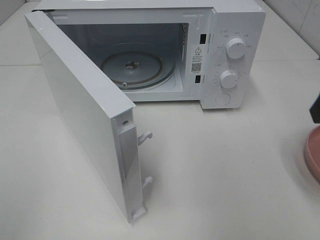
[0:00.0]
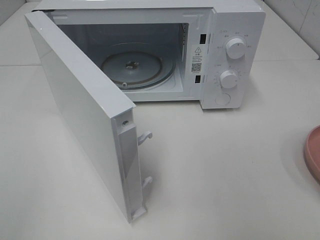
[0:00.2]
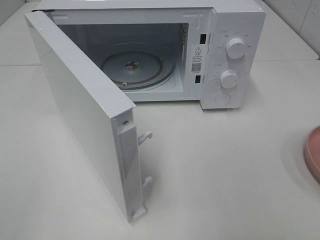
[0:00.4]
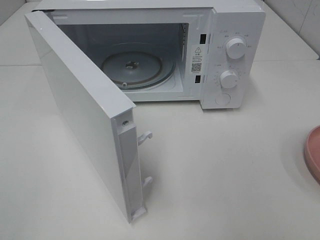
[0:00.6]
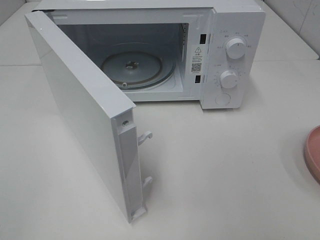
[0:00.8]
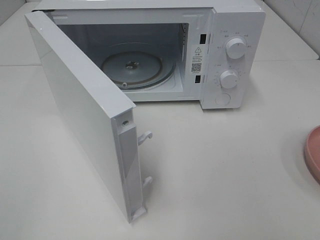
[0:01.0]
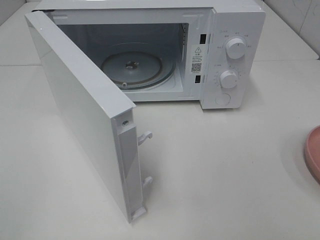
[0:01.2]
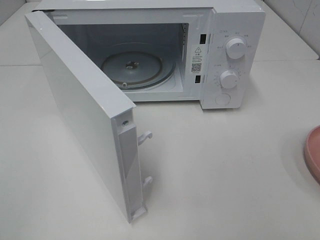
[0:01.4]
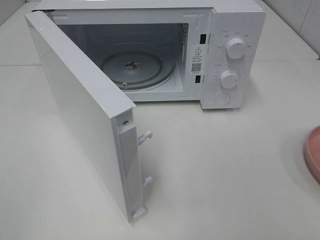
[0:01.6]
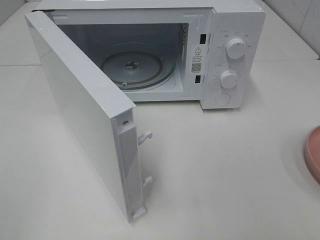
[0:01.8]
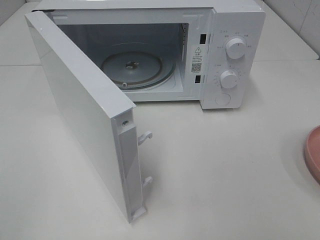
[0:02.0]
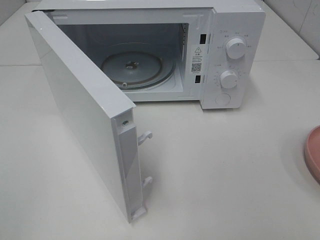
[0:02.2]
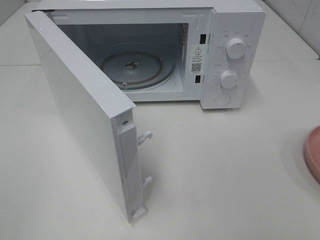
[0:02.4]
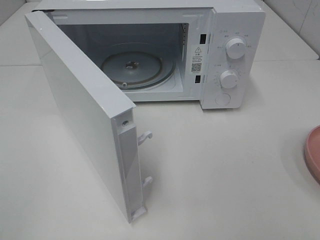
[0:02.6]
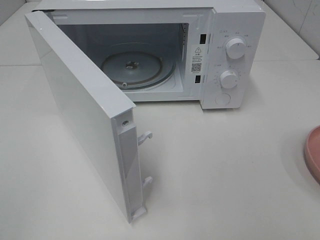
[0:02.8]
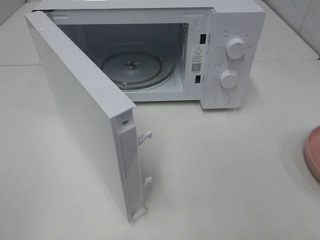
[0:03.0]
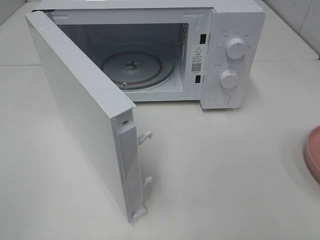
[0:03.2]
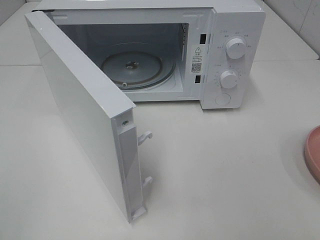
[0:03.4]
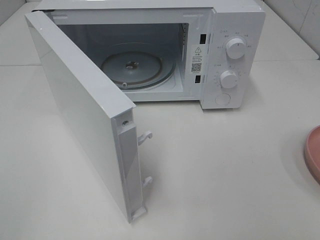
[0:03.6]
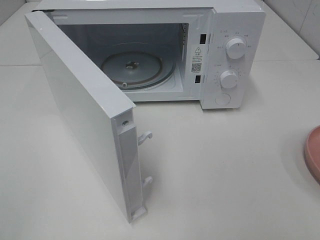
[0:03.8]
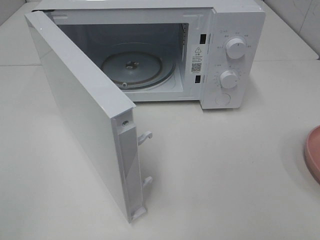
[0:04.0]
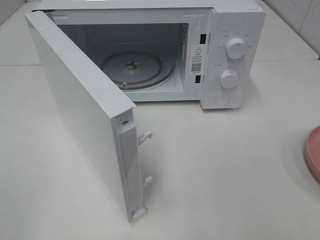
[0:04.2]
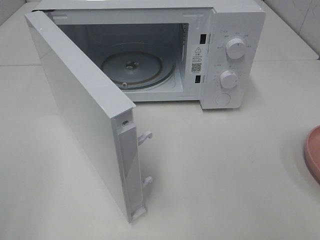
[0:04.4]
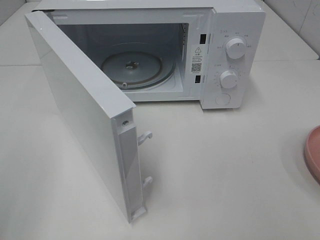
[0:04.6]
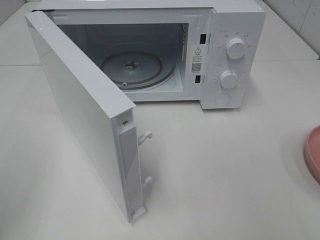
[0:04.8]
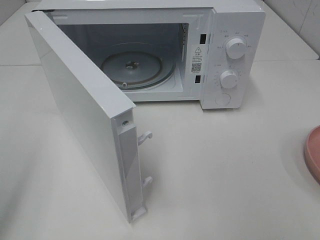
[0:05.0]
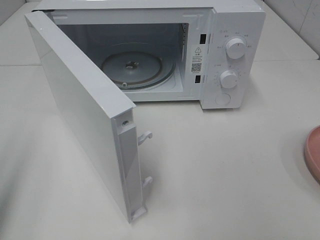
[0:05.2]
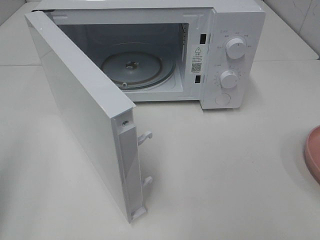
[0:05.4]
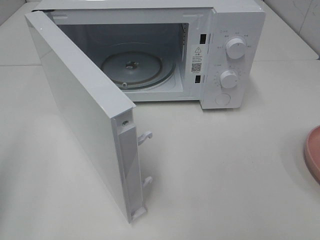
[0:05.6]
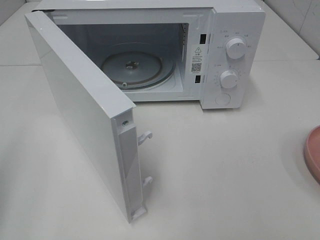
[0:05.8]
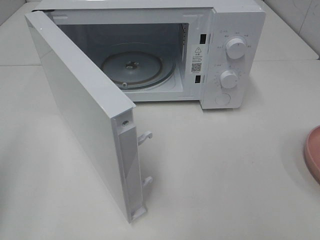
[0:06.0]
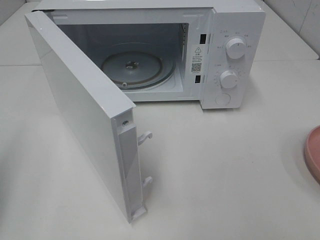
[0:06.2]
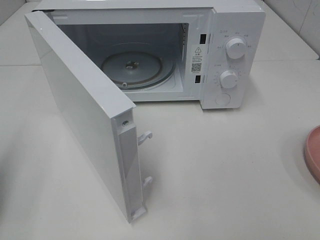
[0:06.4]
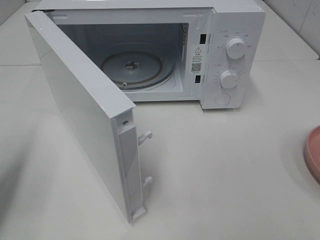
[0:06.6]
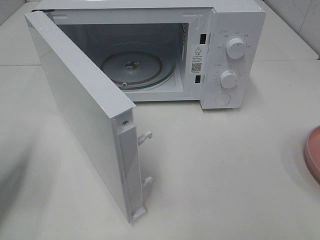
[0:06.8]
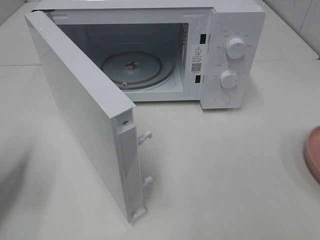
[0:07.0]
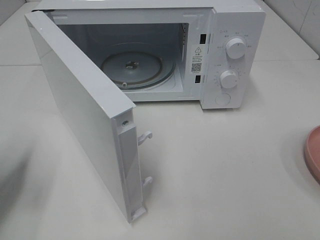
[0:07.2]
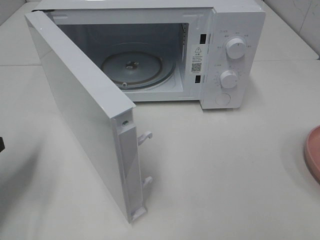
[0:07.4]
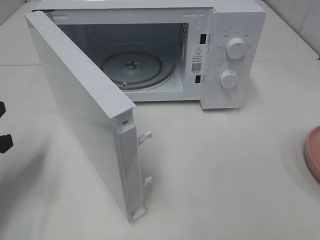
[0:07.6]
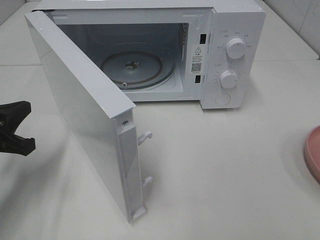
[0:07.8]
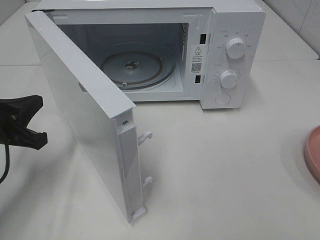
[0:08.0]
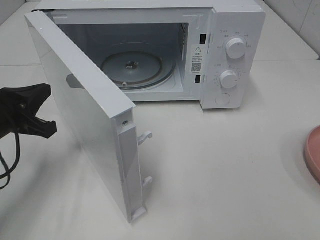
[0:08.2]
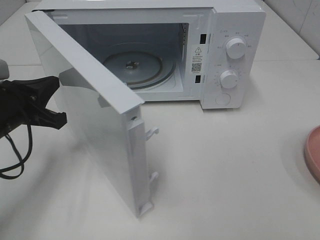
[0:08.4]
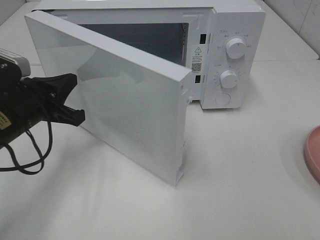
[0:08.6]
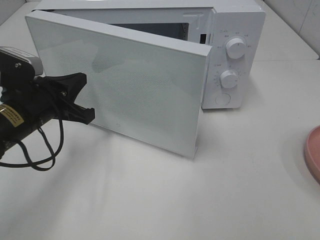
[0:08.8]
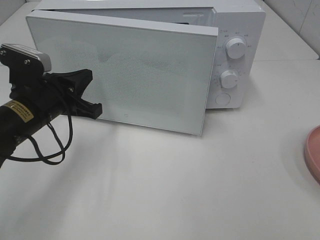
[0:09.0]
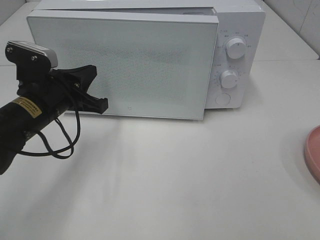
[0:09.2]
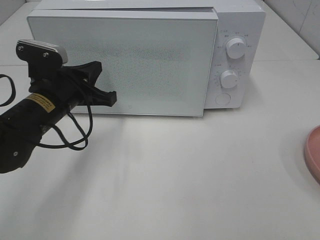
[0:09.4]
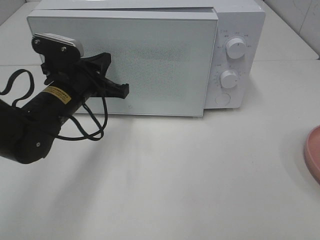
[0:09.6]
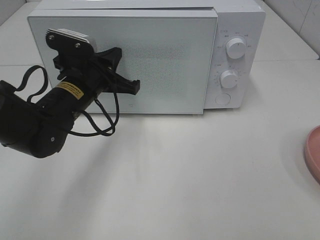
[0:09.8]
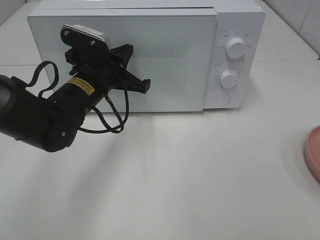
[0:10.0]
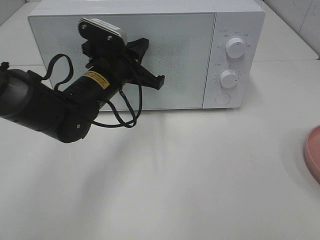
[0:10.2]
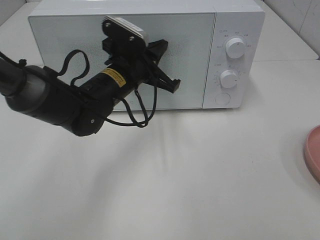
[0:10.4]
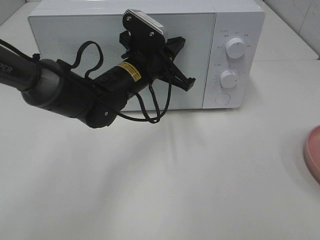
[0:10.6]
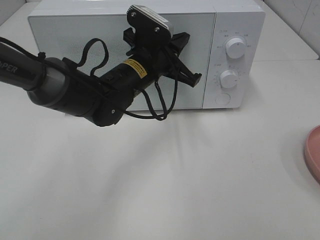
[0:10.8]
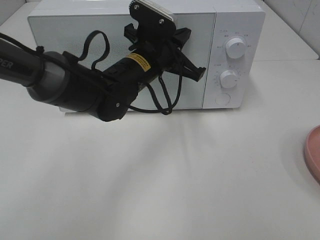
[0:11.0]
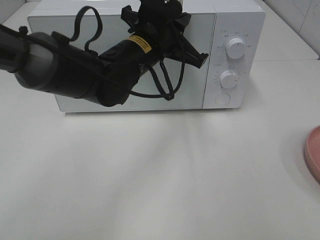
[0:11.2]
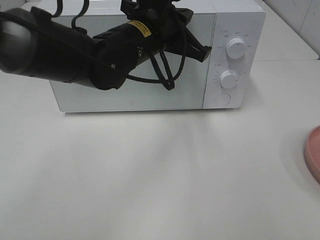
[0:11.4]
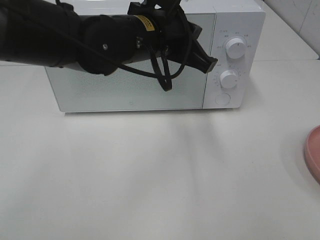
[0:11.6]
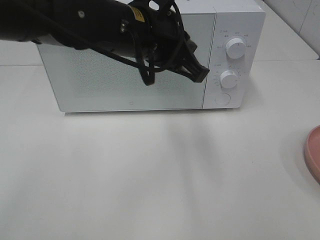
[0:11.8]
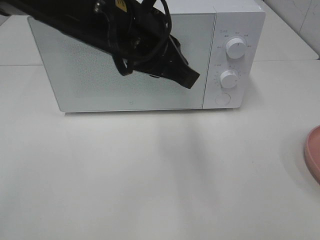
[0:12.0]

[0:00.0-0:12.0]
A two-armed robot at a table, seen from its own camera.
Task of the whole recording: Heat the burger.
Step, 0:00.0 to 0:11.4: Left hand: close the microwave door.
0:01.6 to 0:03.0: The two grippers keep their place.
0:06.0 to 0:07.6: The left gripper moves forward and downward, about 15 cm.
0:07.6 to 0:09.0: The left gripper is displaced to the right and forward by approximately 15 cm.
0:09.0 to 0:10.4: The left gripper moves to the right and forward, roughly 15 cm.
0:10.4 to 0:12.0: The left gripper heads upward and backward, covering approximately 15 cm.

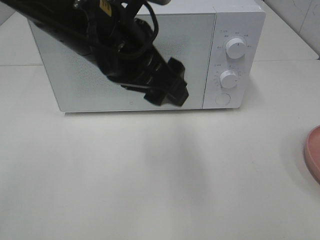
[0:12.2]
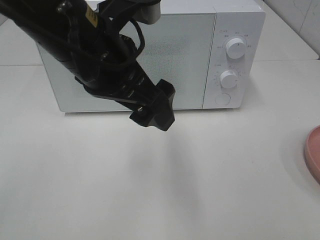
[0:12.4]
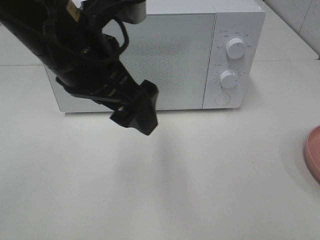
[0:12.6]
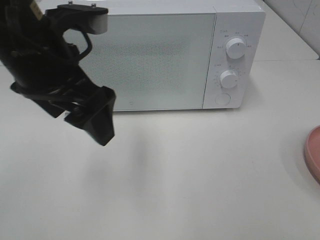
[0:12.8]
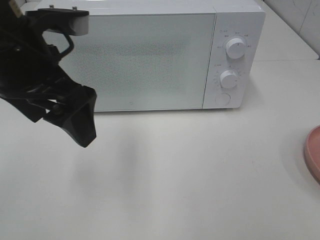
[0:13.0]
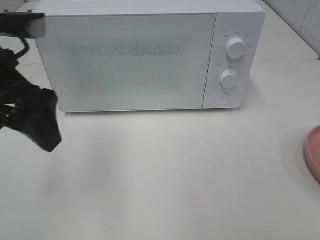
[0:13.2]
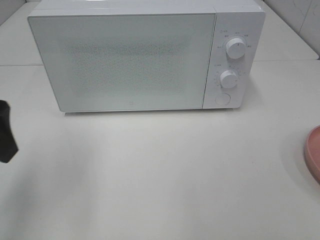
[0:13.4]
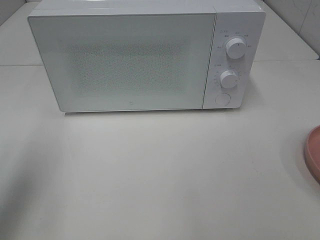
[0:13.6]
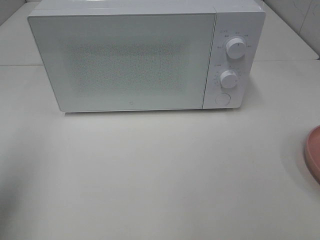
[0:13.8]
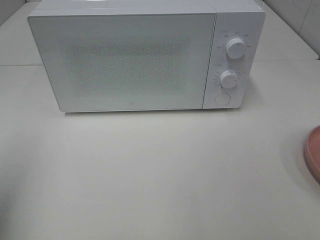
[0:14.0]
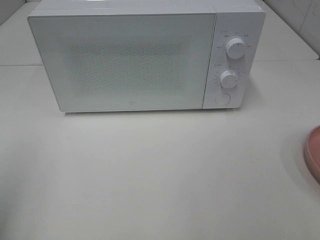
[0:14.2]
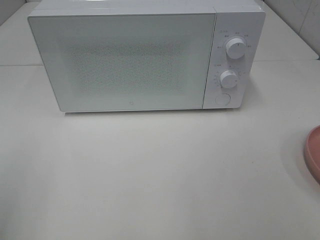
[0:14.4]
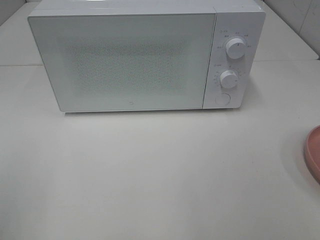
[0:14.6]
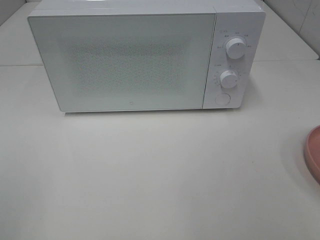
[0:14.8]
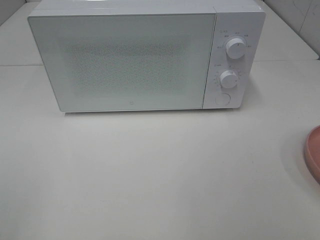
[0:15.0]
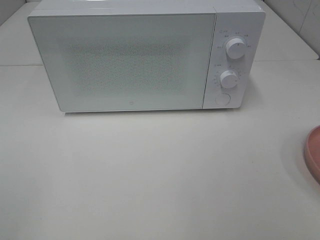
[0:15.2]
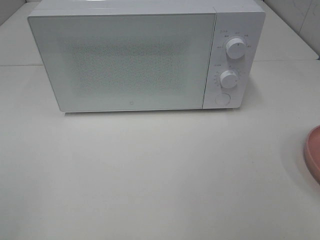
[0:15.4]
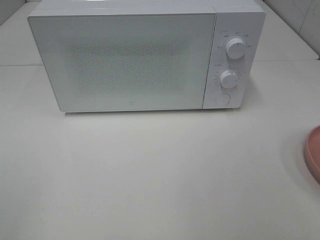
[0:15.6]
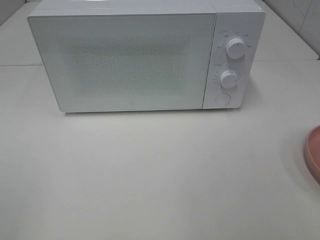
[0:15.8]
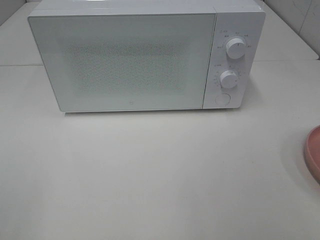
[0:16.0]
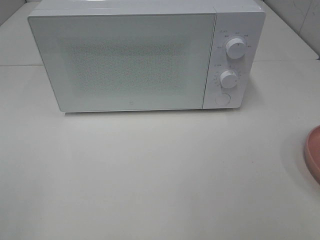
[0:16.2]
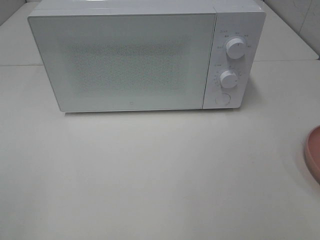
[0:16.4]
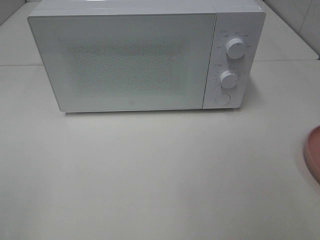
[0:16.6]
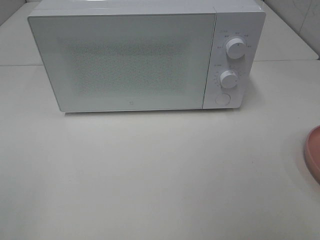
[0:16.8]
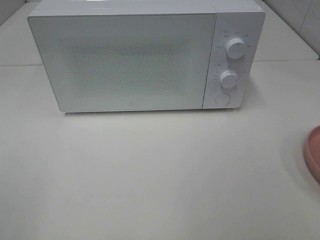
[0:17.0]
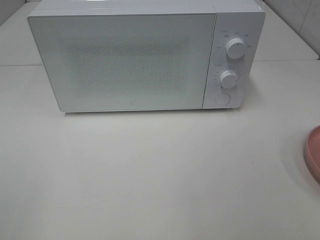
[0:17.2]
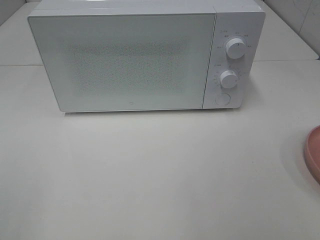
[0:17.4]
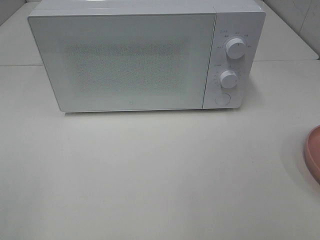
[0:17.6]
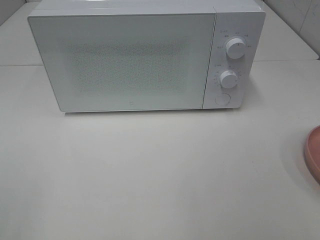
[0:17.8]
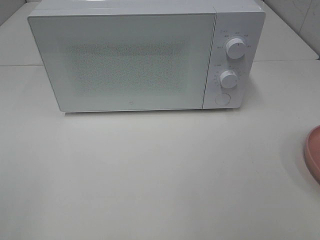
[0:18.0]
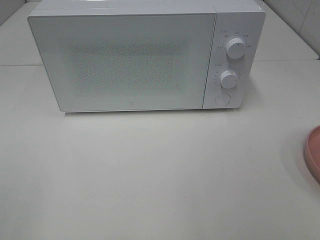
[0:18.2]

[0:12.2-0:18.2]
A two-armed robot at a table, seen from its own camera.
Task of the whole recording: Heat the burger.
0:12.2 to 0:13.8: The left gripper heads to the left, covering roughly 25 cm.
0:13.8 to 0:15.2: The left gripper is displaced backward by approximately 15 cm.
0:15.2 to 0:18.2: Both grippers stay put.

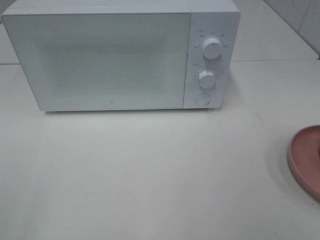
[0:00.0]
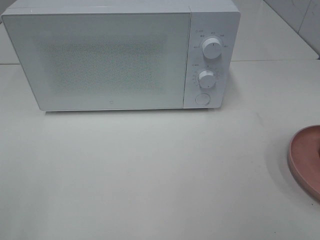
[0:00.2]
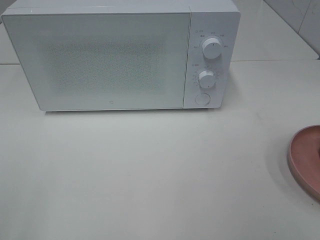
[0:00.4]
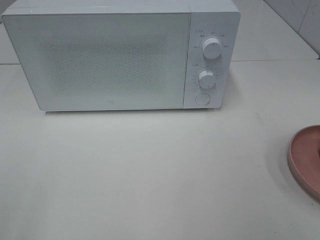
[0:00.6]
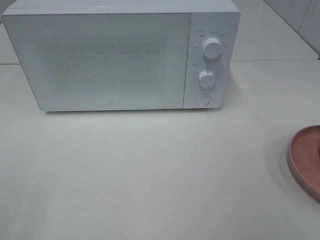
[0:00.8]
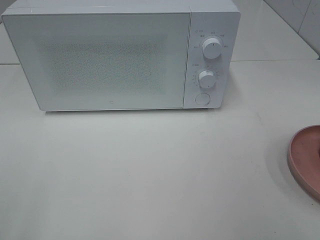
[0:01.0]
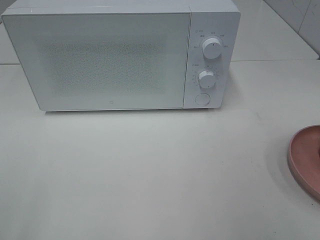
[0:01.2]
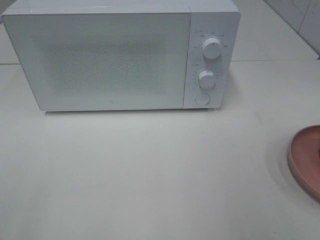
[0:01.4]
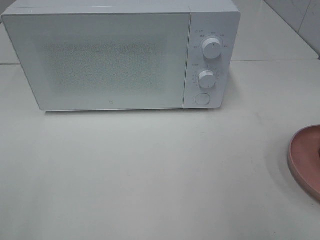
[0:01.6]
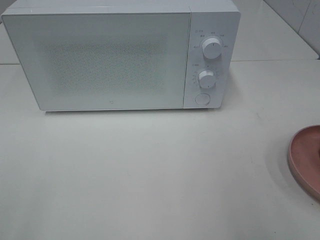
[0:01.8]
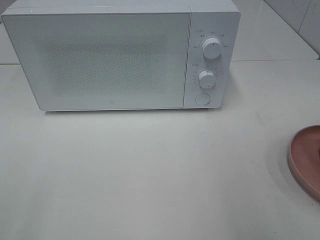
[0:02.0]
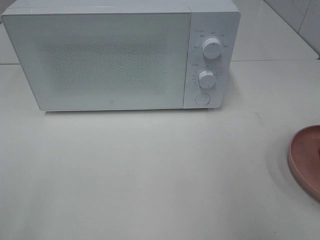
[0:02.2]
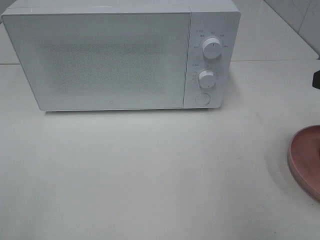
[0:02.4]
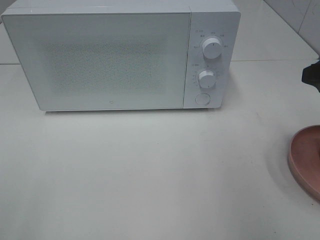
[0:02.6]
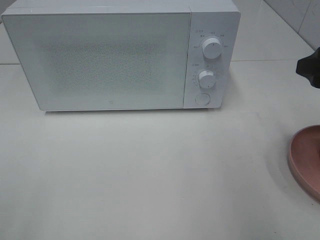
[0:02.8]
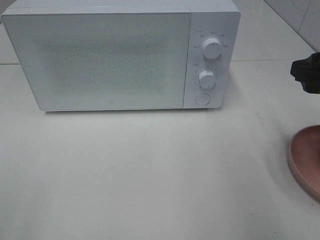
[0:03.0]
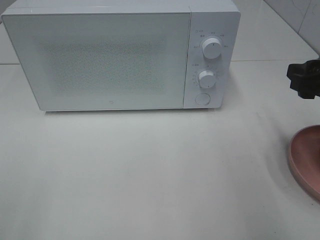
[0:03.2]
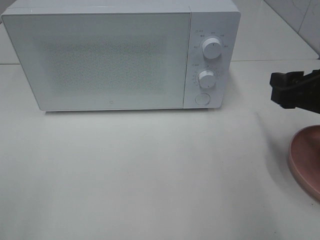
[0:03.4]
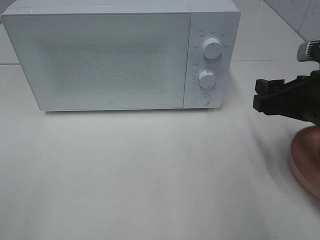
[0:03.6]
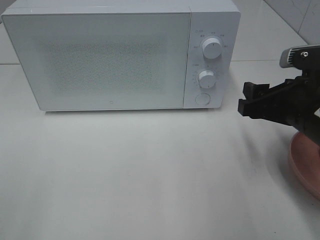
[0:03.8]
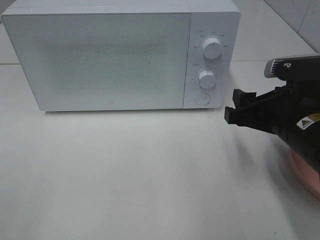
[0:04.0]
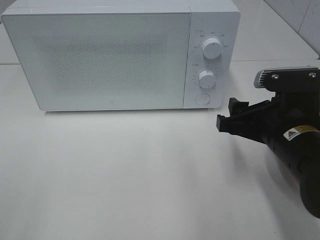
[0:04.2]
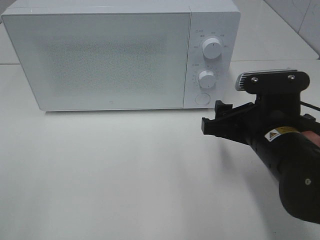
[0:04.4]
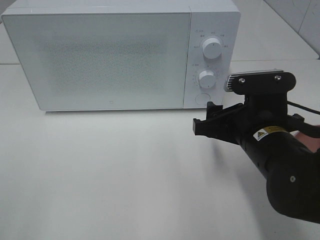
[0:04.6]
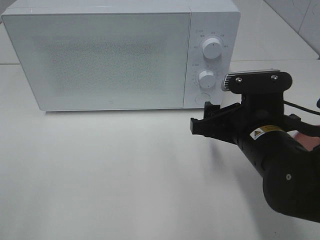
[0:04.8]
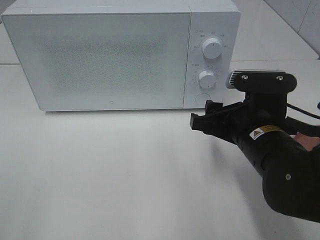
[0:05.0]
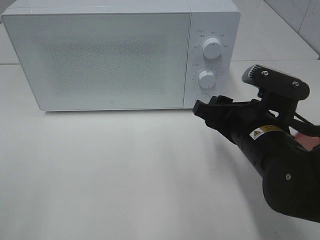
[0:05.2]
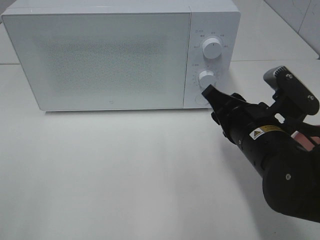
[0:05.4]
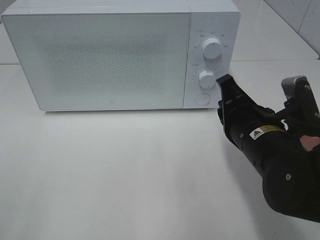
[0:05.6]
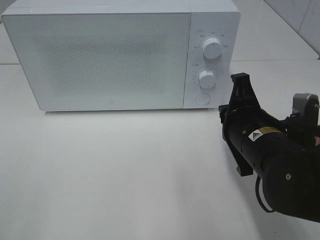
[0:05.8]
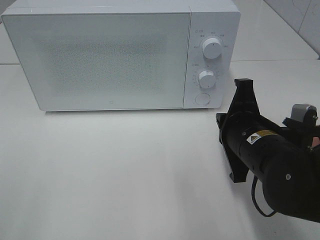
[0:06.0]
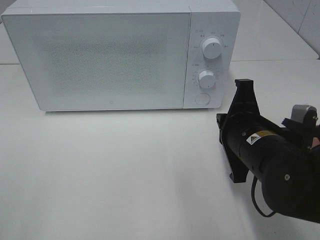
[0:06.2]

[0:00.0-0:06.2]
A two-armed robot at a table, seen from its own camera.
Task of the whole recording: Heat the burger.
0:01.6 to 0:03.2: The right gripper goes roughly 15 cm forward and downward.
0:03.2 to 0:04.6: The right gripper heads to the left and downward, covering about 15 cm.
0:04.6 to 0:06.2: The right gripper closes up.
